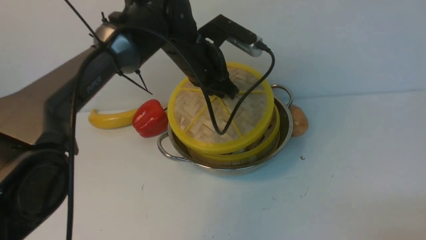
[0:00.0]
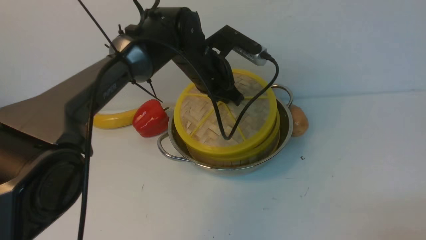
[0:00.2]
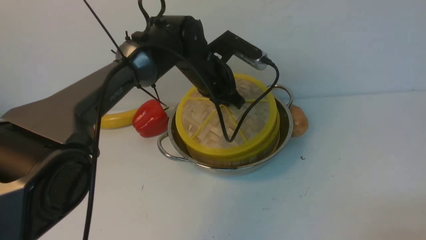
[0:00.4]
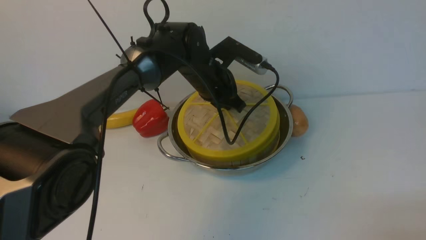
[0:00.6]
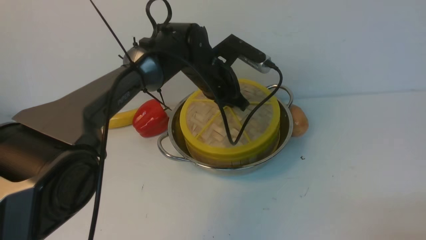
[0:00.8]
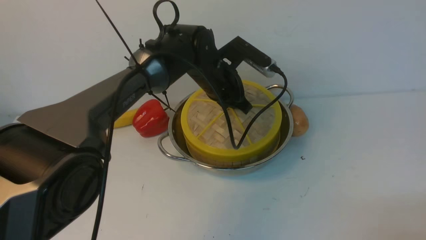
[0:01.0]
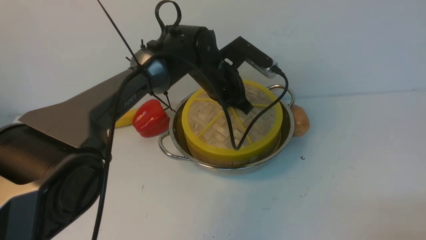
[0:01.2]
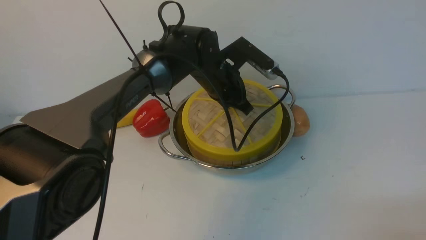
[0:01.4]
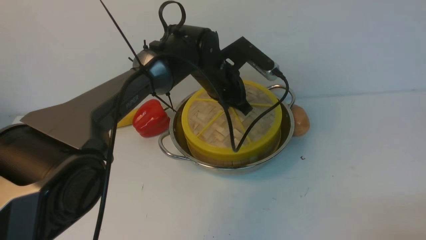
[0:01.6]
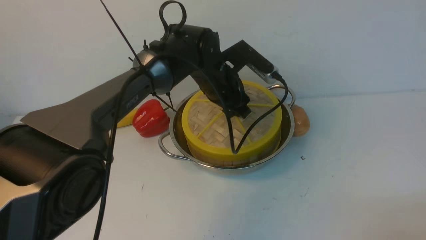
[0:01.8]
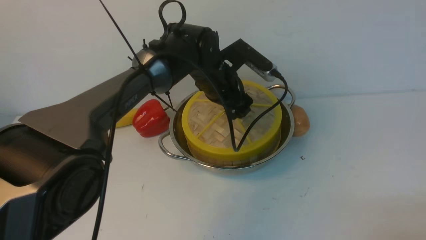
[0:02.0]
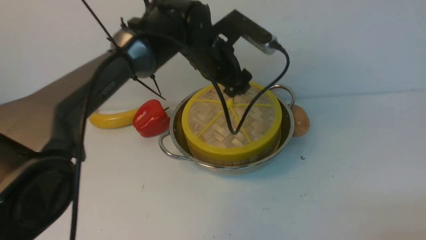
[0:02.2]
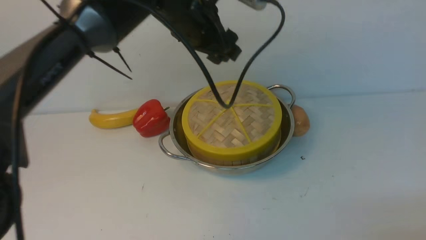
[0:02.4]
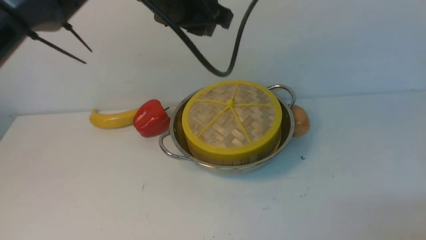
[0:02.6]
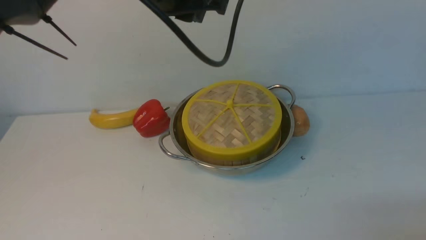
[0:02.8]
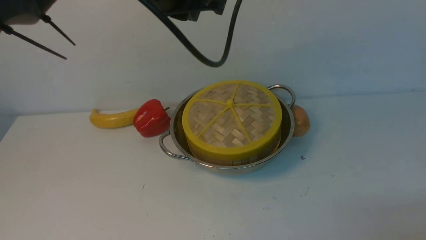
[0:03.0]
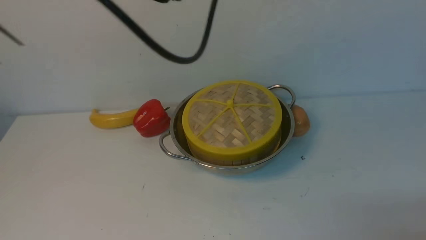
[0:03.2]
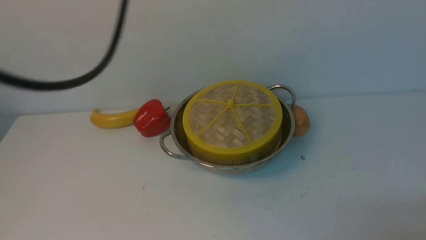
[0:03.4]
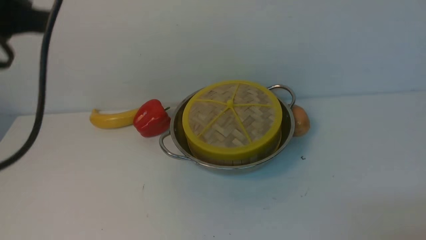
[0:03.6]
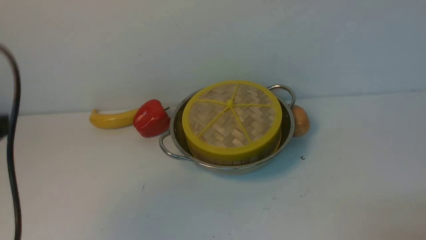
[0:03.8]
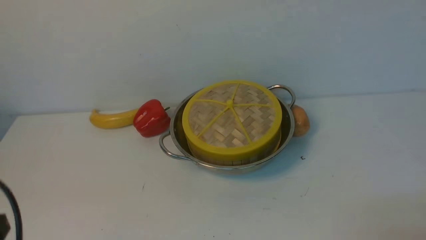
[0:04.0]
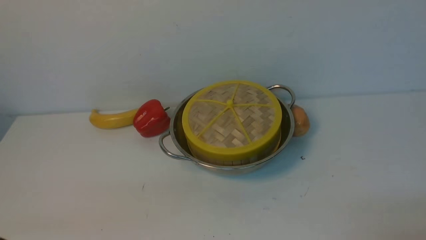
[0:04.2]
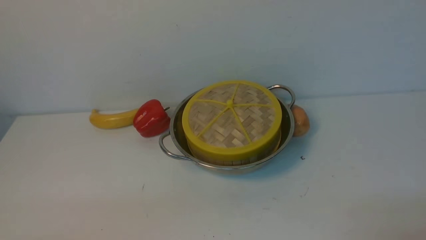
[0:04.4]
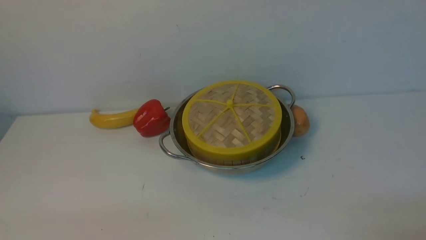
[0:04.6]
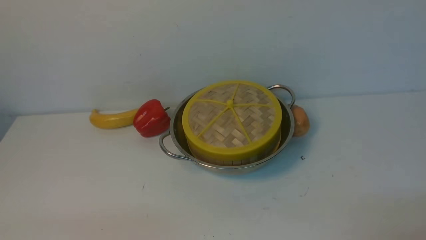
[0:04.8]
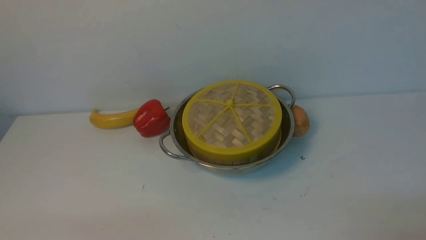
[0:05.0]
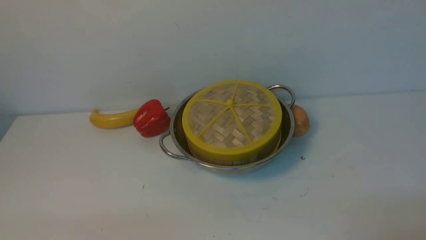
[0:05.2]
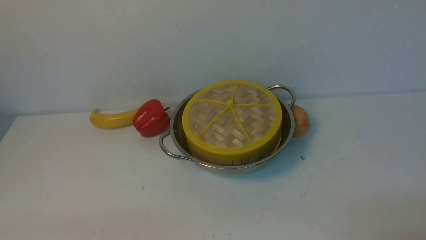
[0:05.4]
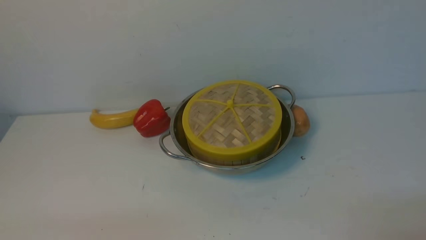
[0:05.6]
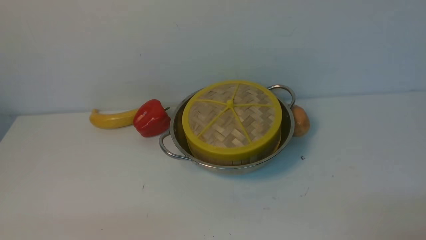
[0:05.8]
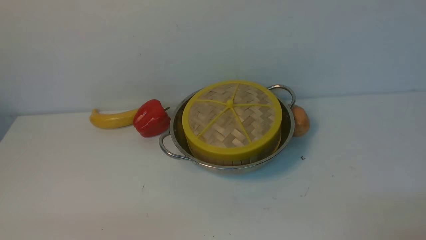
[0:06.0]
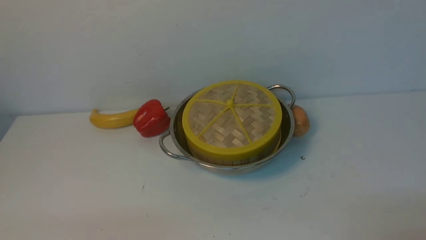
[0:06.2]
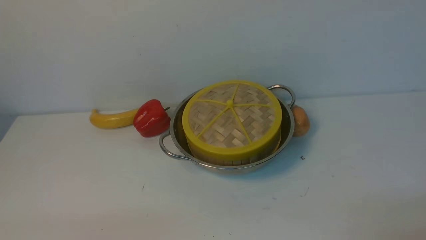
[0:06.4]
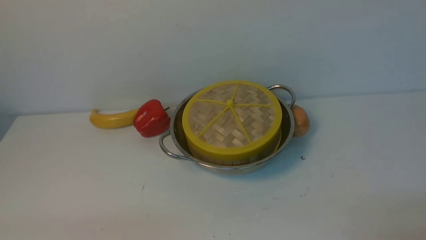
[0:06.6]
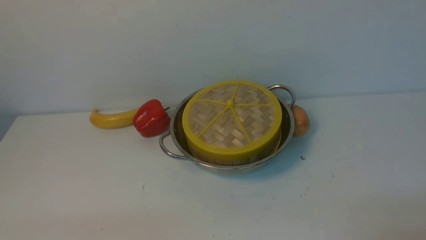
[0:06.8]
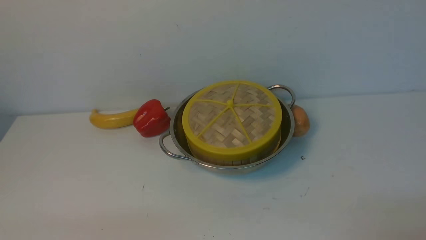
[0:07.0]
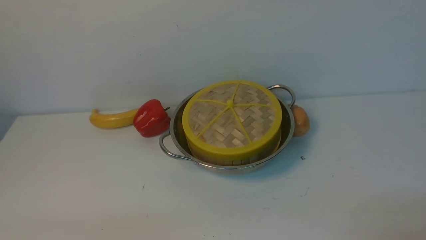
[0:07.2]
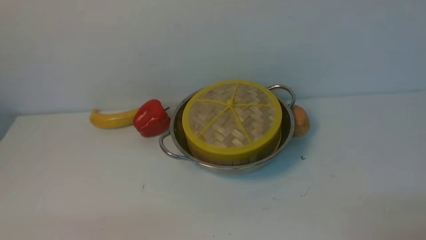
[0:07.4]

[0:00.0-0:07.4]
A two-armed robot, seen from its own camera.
Task of the whole recording: place the steamer in the pot on the white table, and put the lid on the steamer.
Step, 0:00.0 to 0:02.0: use the left arm to place the steamer lid on the steamer.
0:00.0 to 0:01.4: The left gripper shifts by approximately 5 cm.
0:01.4 to 0:03.0: The left gripper shifts about 25 cm upward and backward, and opens and closes again.
0:03.0 to 0:04.4: The left gripper shifts about 40 cm backward, downward and to the left.
0:06.0 to 0:07.4: The two grippers keep their place.
